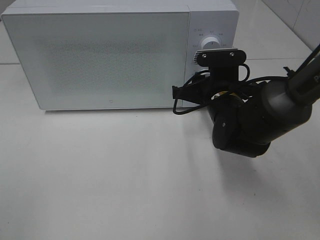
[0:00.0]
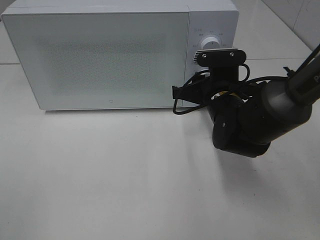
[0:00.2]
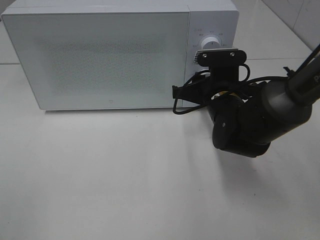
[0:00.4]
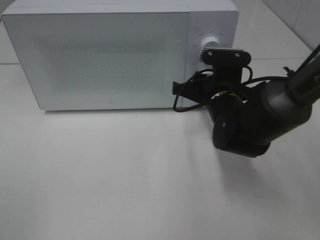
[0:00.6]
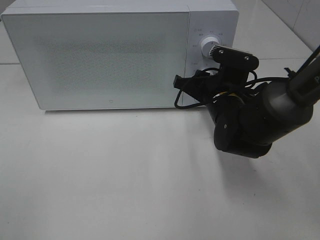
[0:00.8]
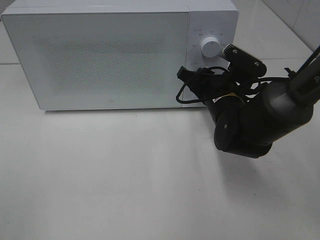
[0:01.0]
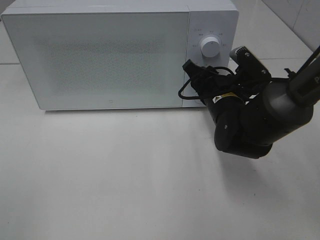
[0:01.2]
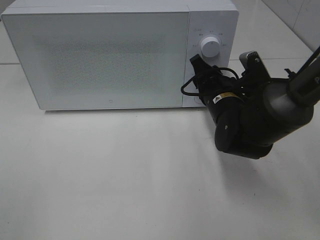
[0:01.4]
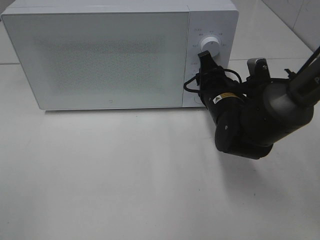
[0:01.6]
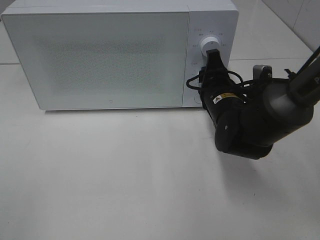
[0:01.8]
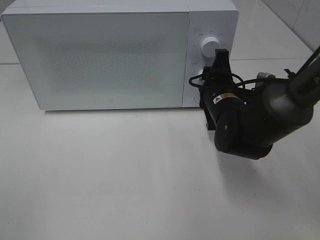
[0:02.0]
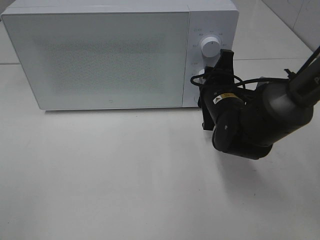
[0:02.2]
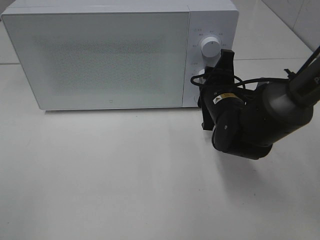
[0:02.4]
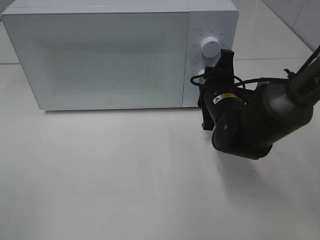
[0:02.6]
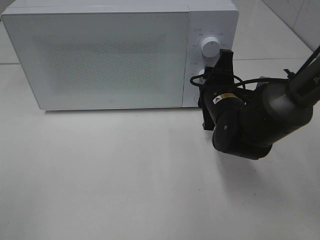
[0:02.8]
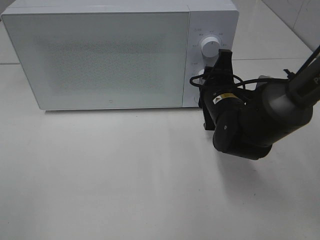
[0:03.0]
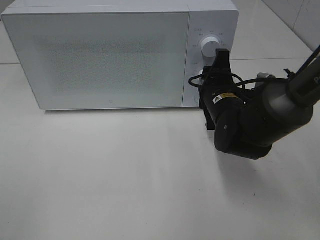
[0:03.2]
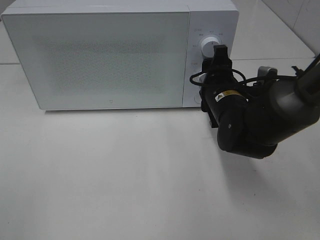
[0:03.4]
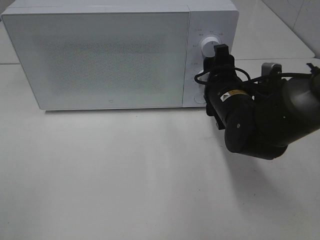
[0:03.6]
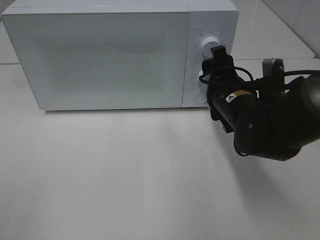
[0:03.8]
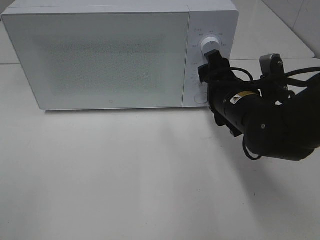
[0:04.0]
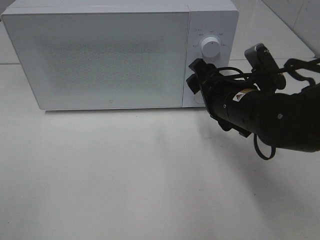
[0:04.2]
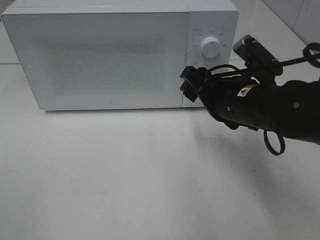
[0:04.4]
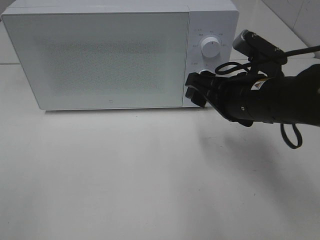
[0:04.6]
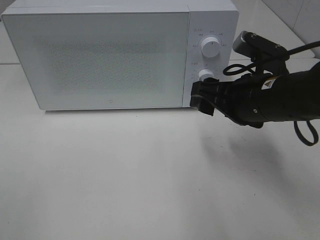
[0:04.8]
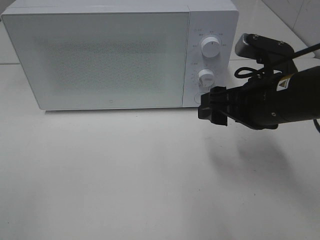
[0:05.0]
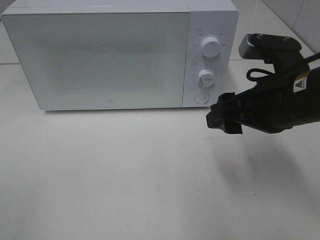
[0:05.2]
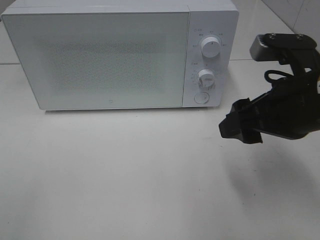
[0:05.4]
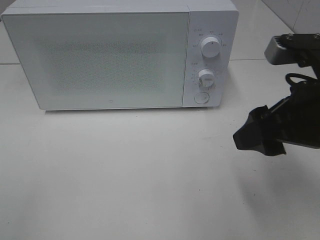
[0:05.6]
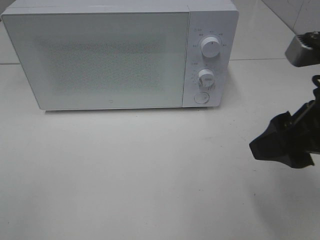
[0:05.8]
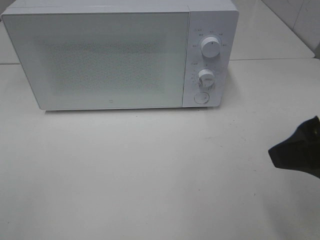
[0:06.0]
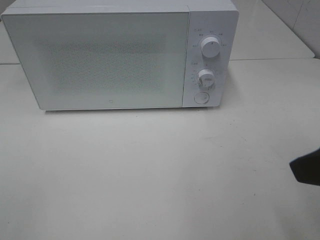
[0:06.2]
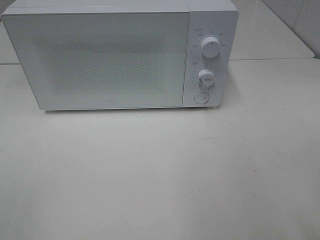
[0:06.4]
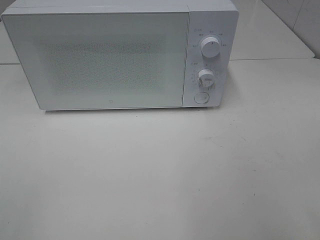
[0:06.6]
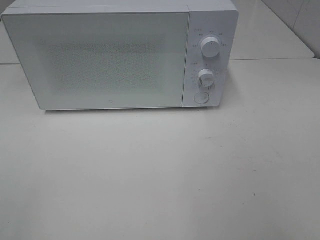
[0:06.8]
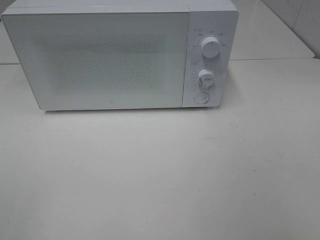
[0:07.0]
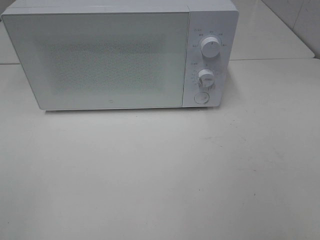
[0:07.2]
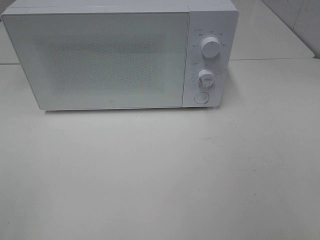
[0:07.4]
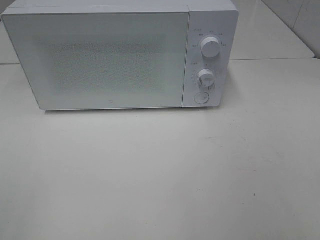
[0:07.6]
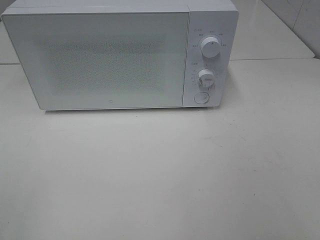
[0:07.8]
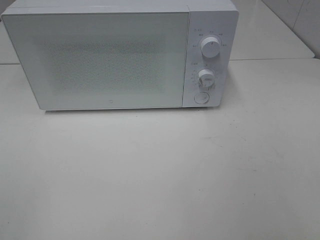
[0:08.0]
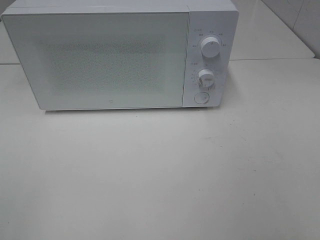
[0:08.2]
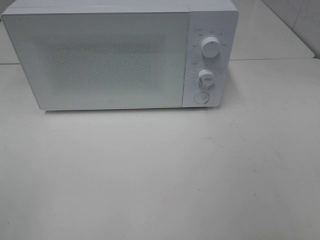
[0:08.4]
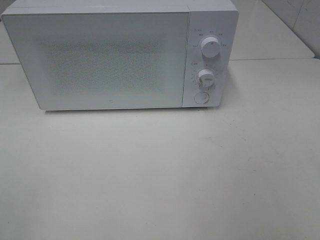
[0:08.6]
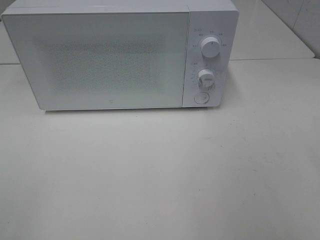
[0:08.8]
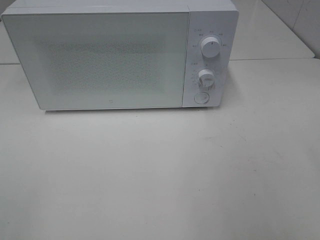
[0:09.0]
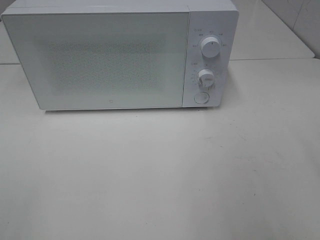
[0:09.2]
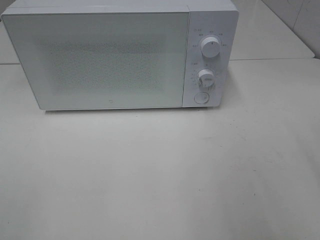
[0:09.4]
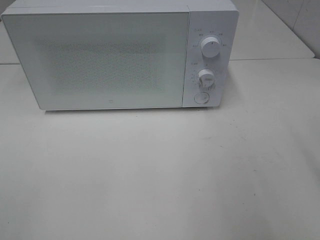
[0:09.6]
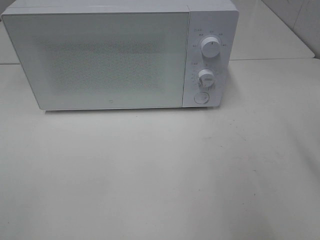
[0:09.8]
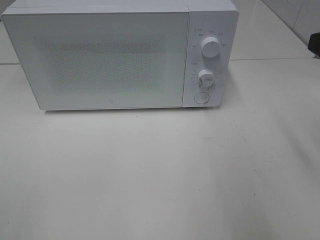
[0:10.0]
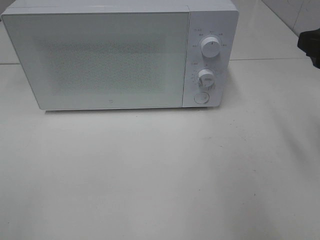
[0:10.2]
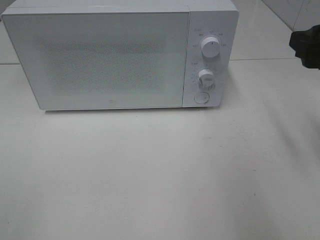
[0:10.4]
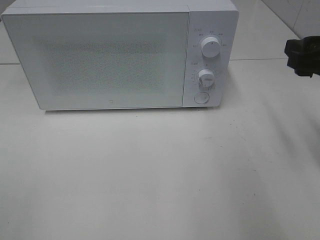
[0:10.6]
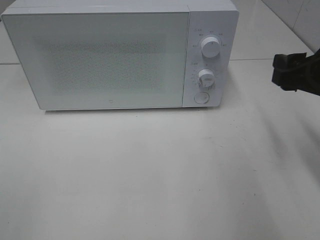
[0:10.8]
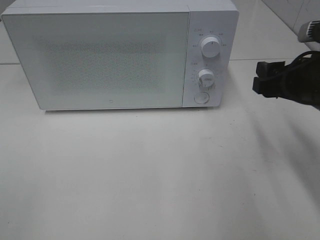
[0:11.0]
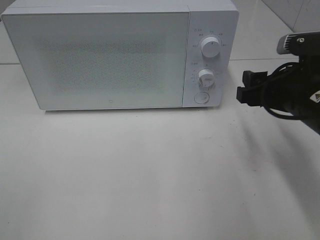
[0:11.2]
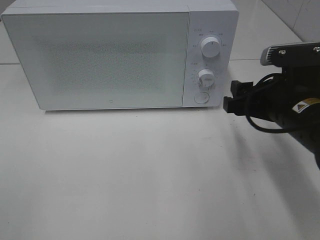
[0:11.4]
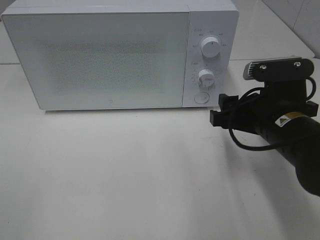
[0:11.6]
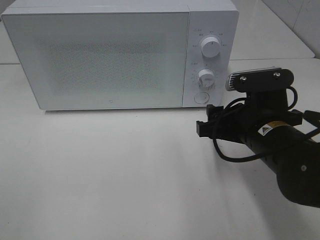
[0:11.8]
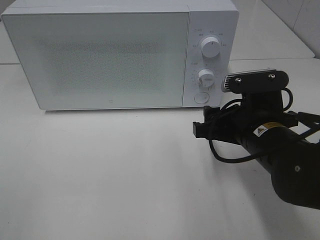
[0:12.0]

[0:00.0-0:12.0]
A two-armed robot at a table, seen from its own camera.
Task of the whole recording: Heat Sandwich.
Step, 0:00.0 to 0:03.8: Right hand: twist timer button.
0:03.0 to 0:04.4: The right gripper moves backward and upward, some 10 cm, and opens up.
0:04.4 to 0:06.0: The right gripper heads backward, upward and to the right, covering about 20 cm.
0:06.0 to 0:07.6: The right gripper goes approximately 15 cm backward and to the right.
0:09.0 to 0:10.4: The right gripper travels forward by roughly 15 cm.
0:10.4 to 0:12.0: The right gripper heads downward and to the left, covering some 15 cm.

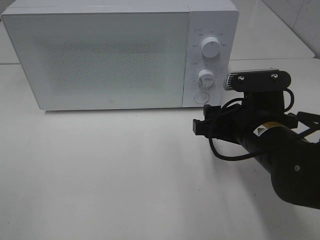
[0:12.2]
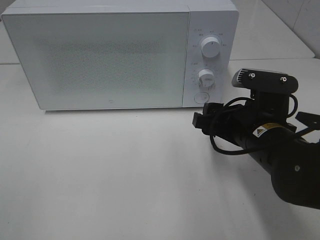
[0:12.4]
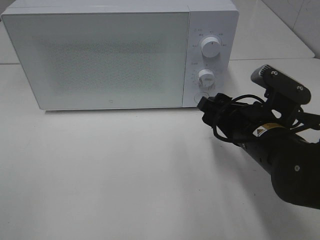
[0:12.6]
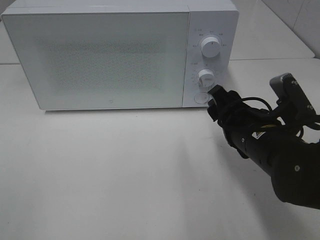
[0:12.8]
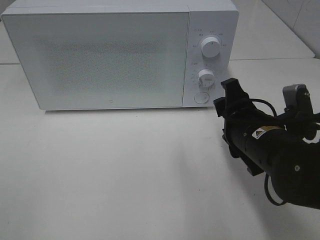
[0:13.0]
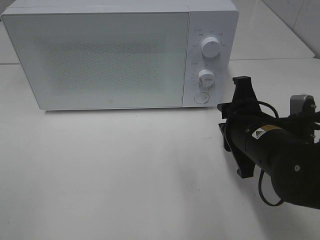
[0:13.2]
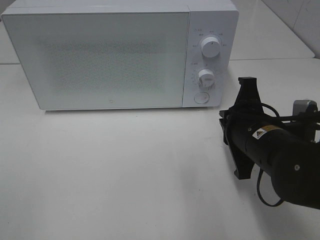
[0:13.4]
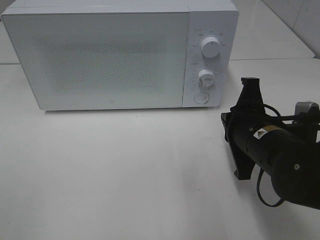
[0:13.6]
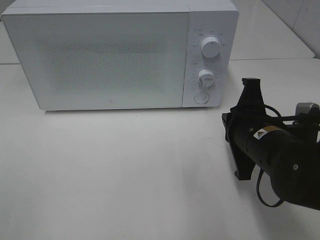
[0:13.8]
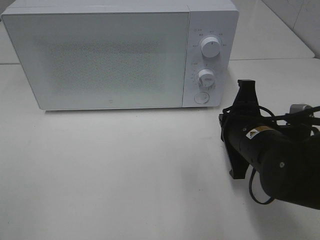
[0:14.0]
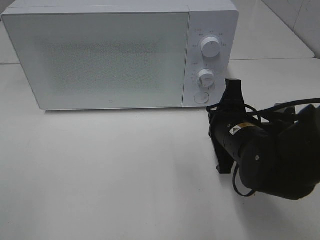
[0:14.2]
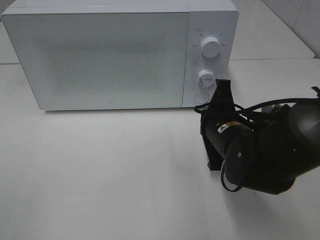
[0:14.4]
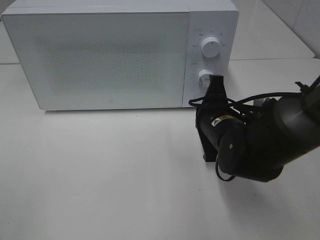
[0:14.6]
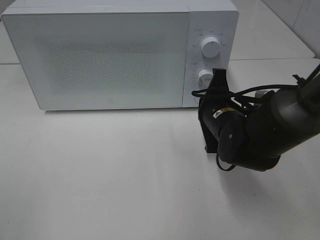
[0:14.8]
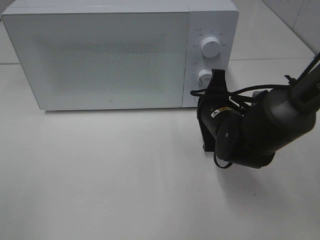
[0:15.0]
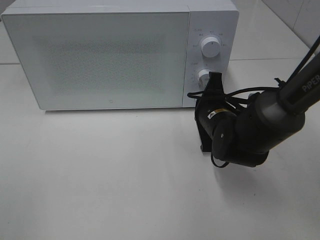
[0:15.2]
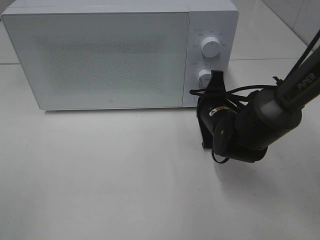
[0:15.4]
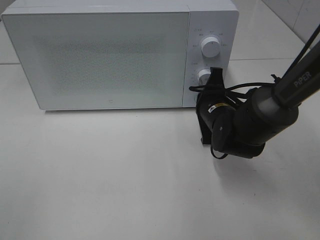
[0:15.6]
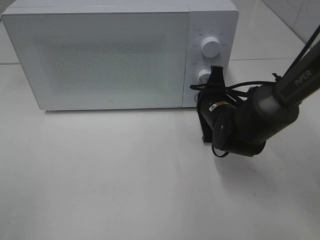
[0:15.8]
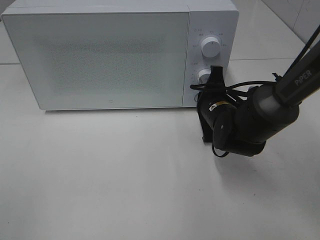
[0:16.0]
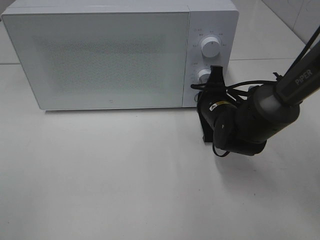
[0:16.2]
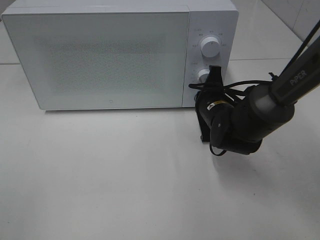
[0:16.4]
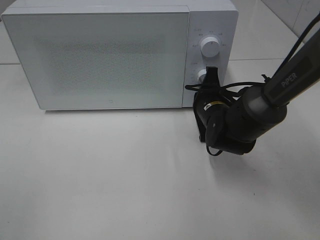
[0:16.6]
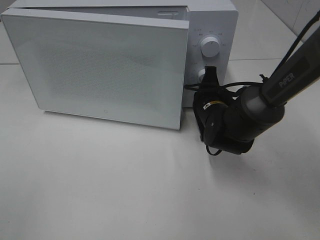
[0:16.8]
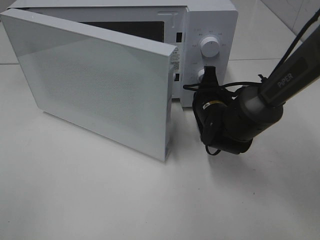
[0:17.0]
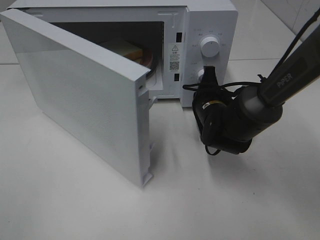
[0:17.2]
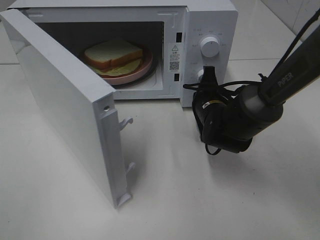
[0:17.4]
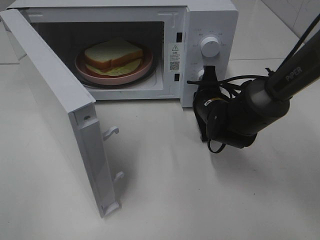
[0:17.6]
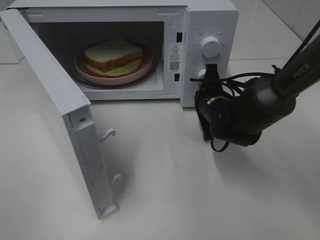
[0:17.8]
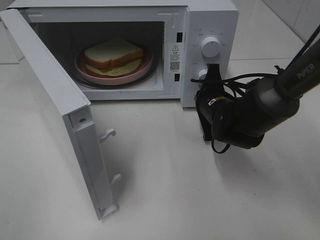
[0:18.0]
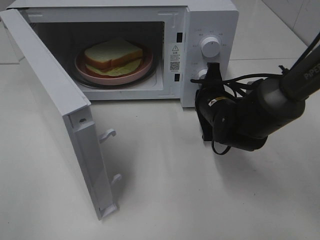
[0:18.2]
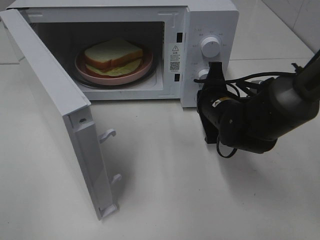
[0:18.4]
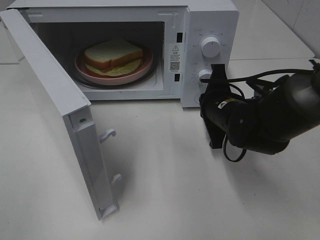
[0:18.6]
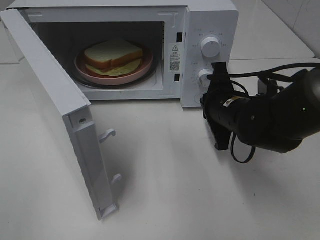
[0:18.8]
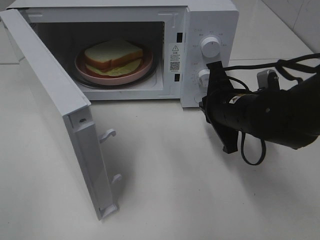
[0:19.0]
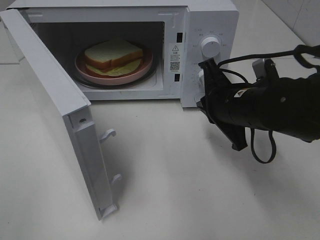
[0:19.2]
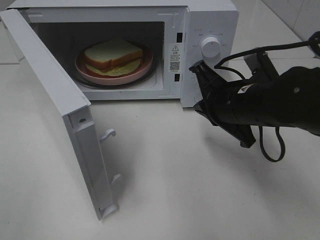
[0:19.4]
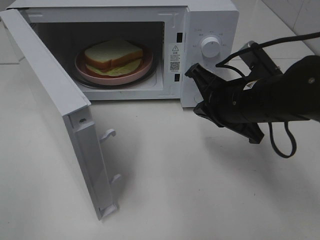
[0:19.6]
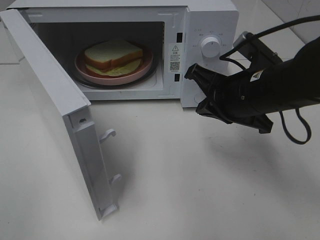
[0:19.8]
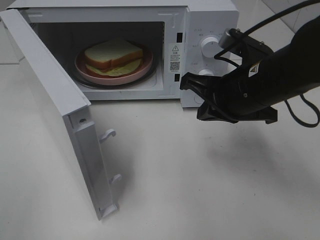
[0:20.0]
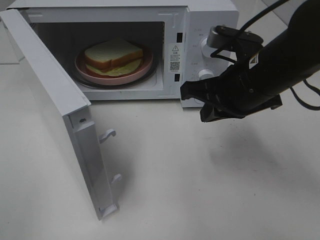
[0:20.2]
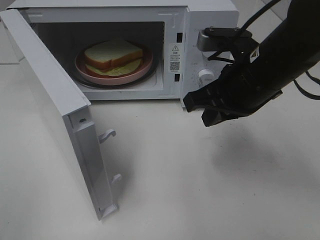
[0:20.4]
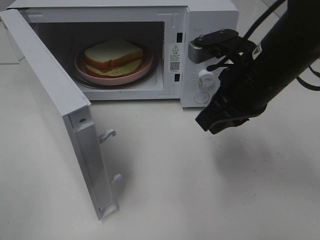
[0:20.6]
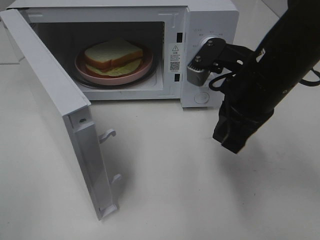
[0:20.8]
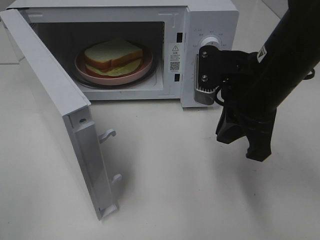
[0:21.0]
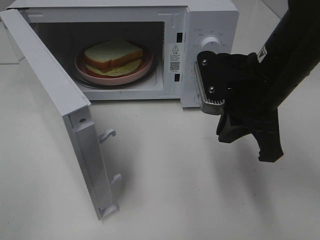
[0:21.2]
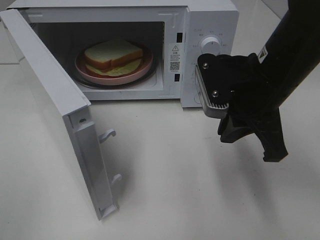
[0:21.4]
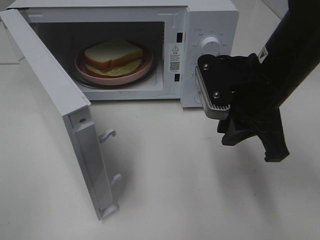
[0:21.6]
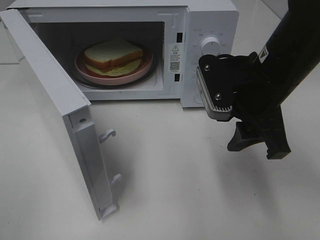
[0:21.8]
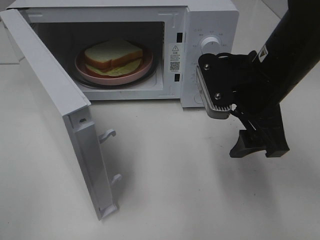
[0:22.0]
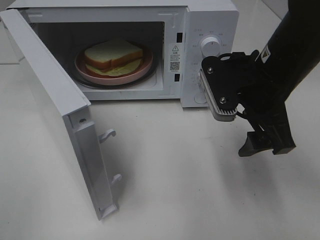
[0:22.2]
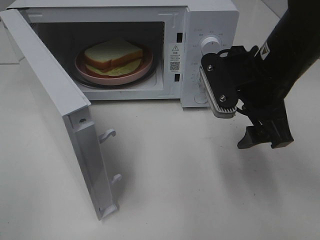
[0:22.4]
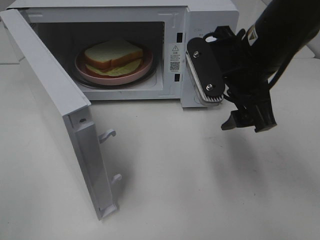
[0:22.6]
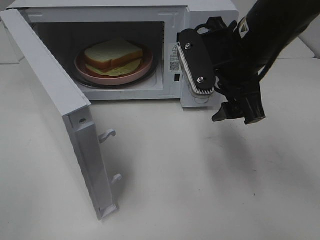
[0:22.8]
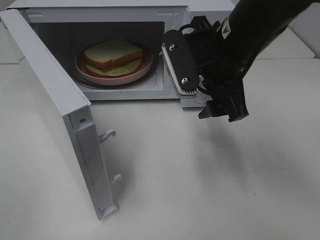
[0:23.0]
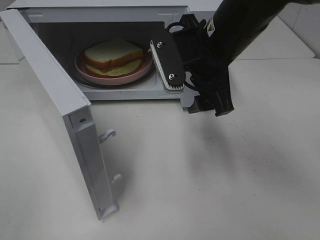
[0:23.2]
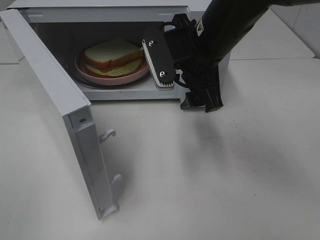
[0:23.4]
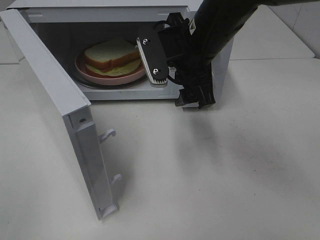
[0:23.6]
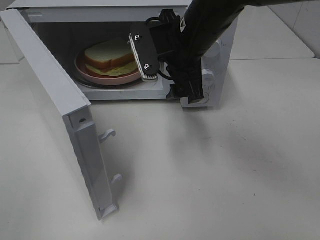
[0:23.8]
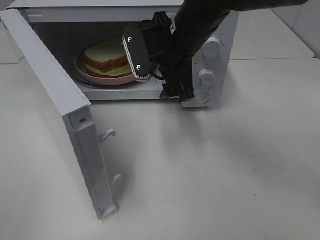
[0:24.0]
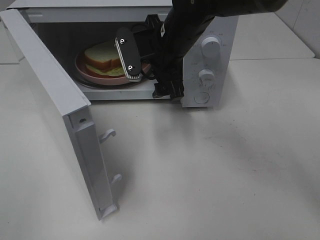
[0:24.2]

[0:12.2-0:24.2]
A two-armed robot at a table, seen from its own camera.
Task of the whole recording: Heat Sandwich.
Step, 0:12.2 to 0:18.6: Right hand: press the switch.
0:12.2 to 0:13.8: The right gripper closes up.
0:13.8 to 0:15.2: The right gripper travels forward and downward by roughly 10 cm.
0:15.2 to 0:16.6: There are only small adjustments of the grippers.
0:18.2 to 0:19.8: The right gripper travels upward and backward by approximately 10 cm.
0:21.2 to 0:22.6: The right gripper opens its fingers.
0:22.6 to 0:24.2: The right gripper goes approximately 15 cm forward and to the left.
